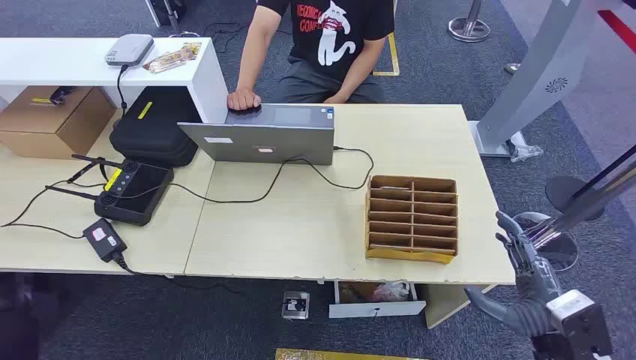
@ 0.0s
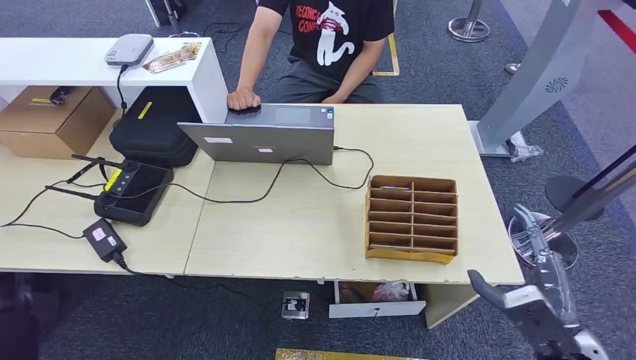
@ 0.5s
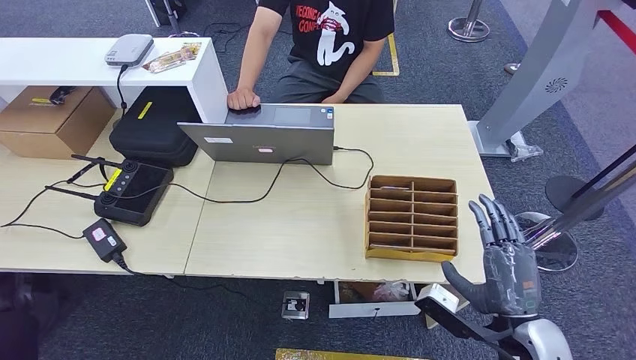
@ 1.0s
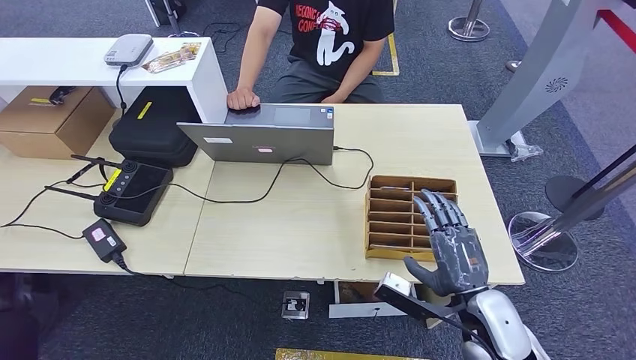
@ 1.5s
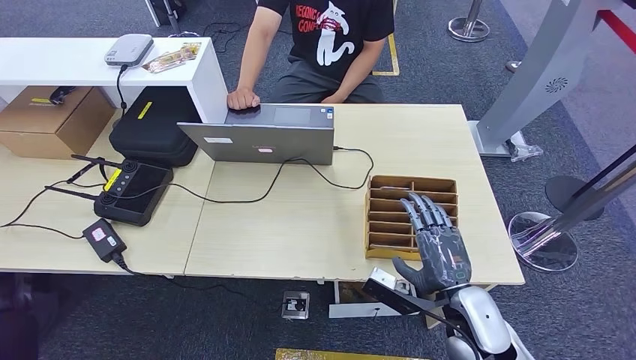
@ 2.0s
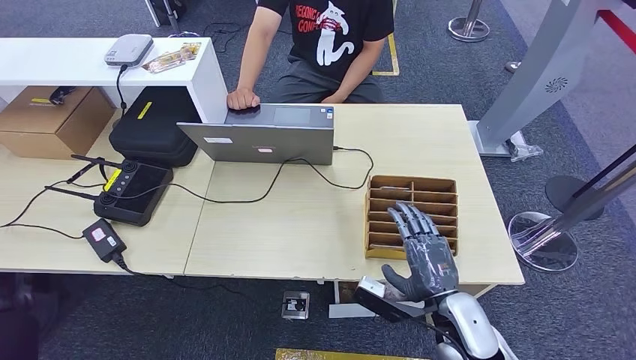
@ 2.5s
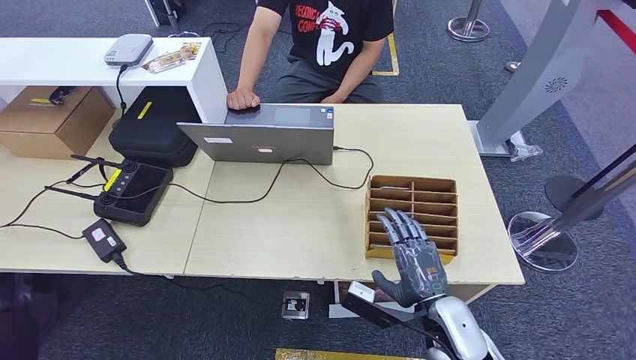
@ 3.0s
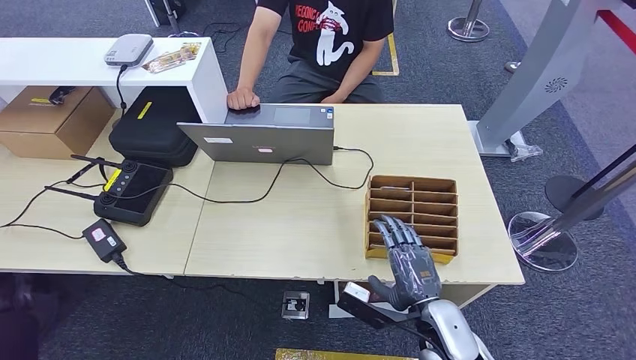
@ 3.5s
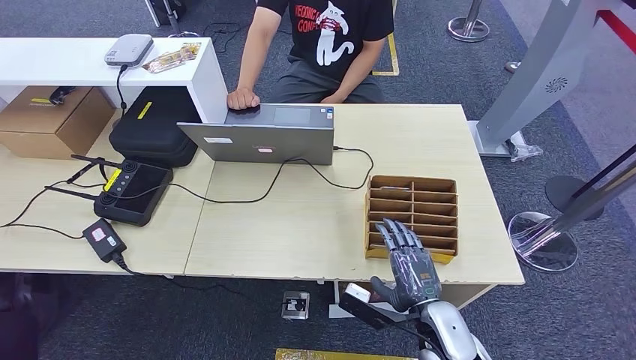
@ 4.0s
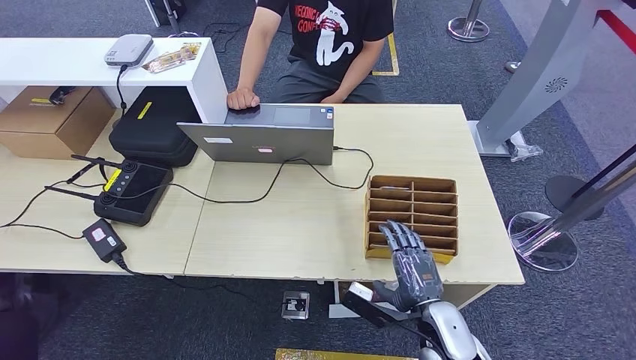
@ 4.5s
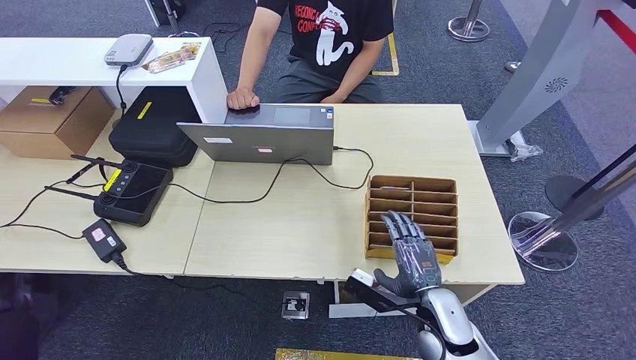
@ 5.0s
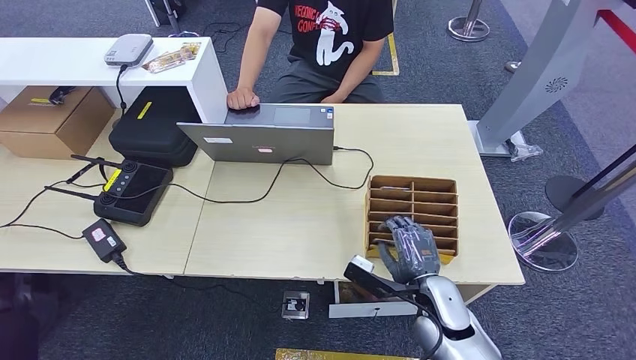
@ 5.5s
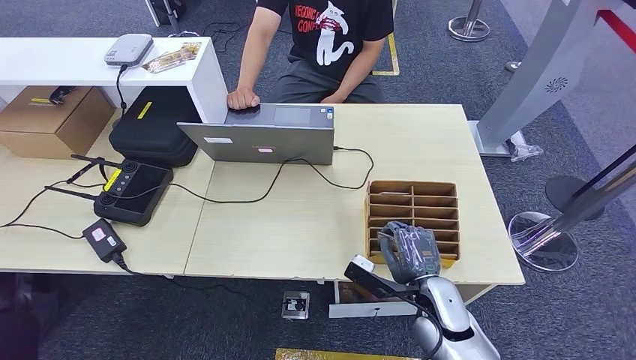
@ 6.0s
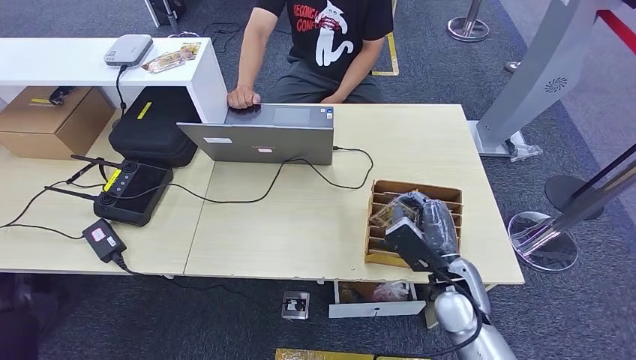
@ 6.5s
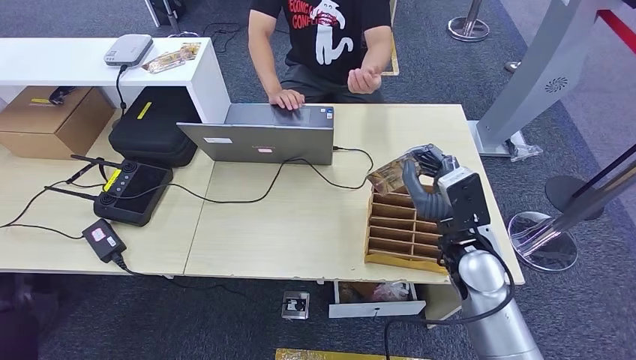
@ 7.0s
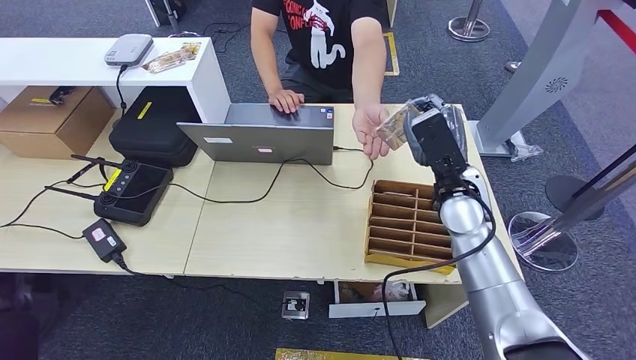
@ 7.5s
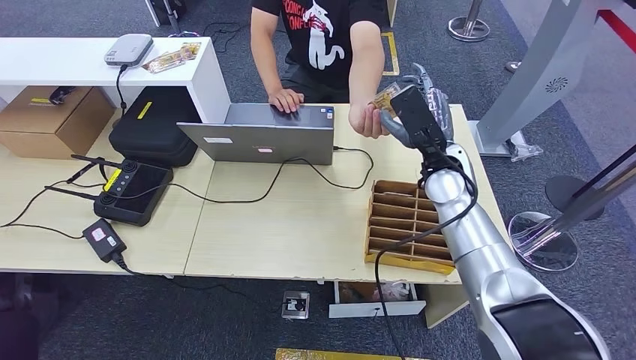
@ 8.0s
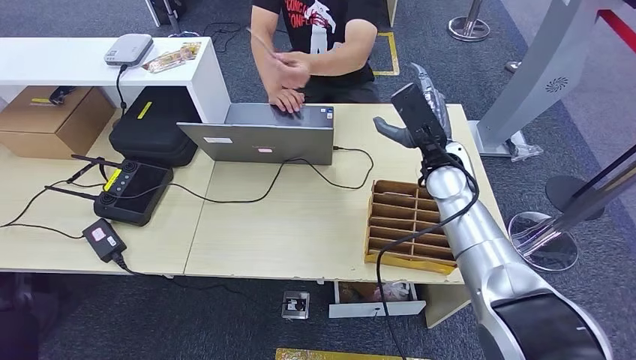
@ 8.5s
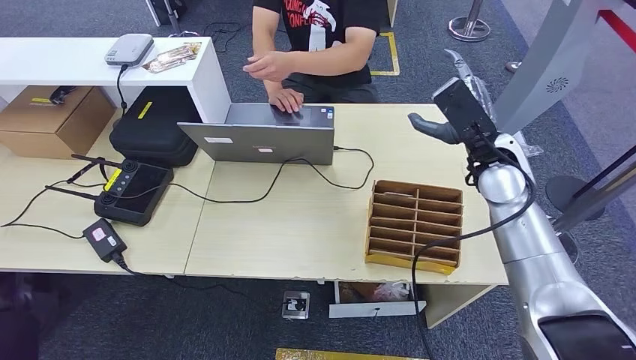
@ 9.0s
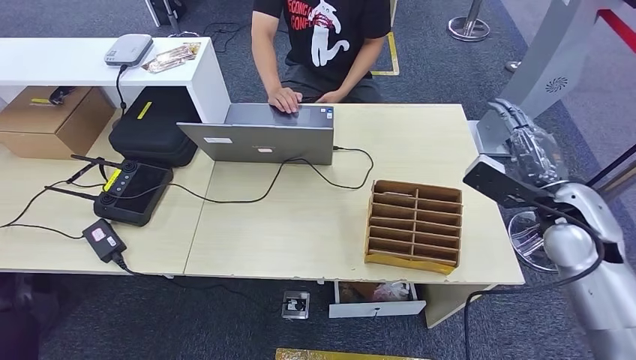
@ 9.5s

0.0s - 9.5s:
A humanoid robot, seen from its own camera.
Task of the whole recording: Pick up the card and hand it to the target person.
Step, 0.0s - 6.5s: Pick up the key card from the card box.
Step, 7.0s - 9.5s: Hand the key card to the target.
2.0s - 4.0s: The right hand moves about 5 cm.
4.0s - 5.5s: The hands move only a little.
5.5s - 7.5s: The right hand travels upward and forward by about 20 cm.
7.5s - 9.5s: The right hand goes about 15 cm to the right.
